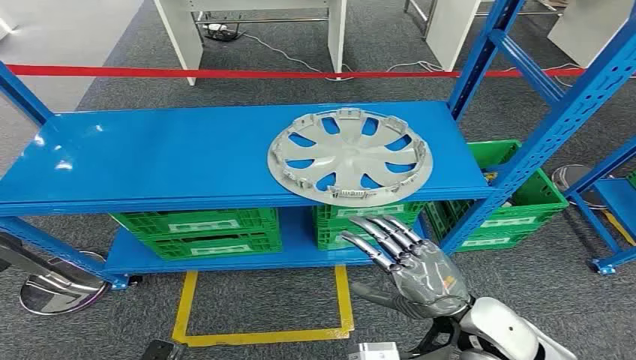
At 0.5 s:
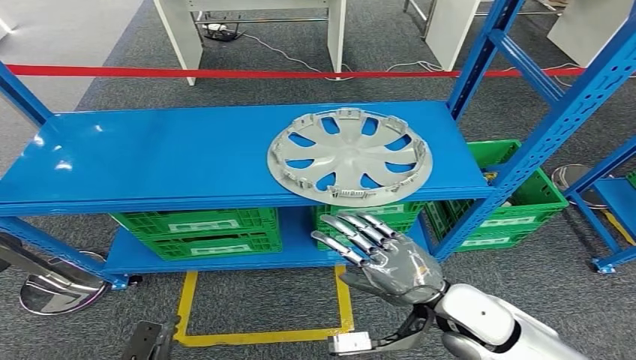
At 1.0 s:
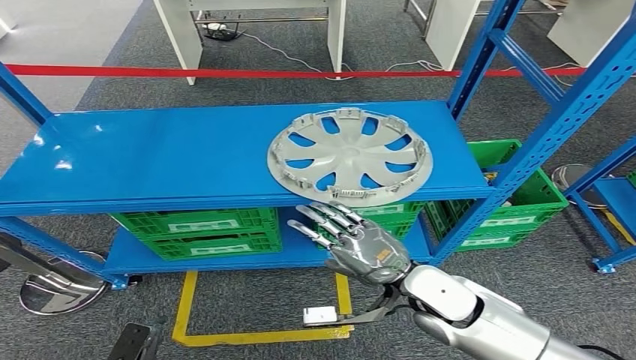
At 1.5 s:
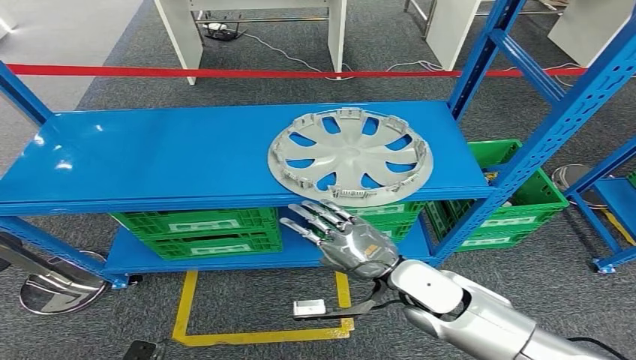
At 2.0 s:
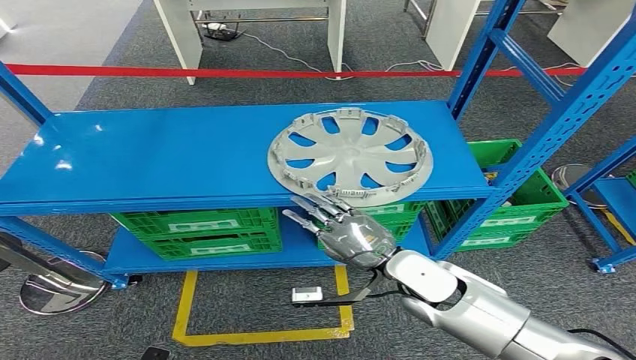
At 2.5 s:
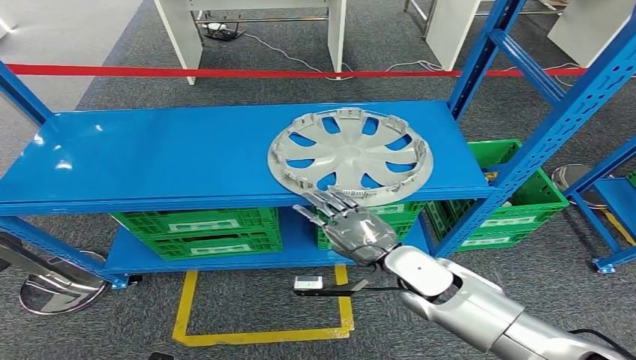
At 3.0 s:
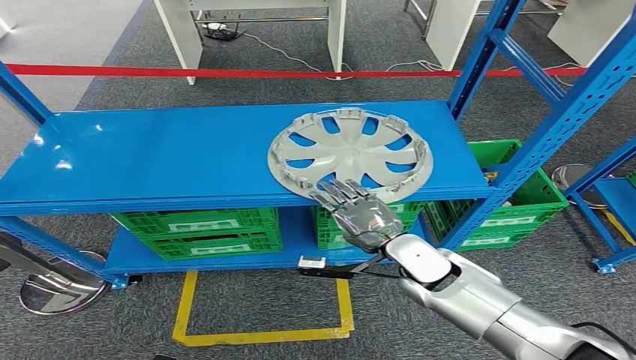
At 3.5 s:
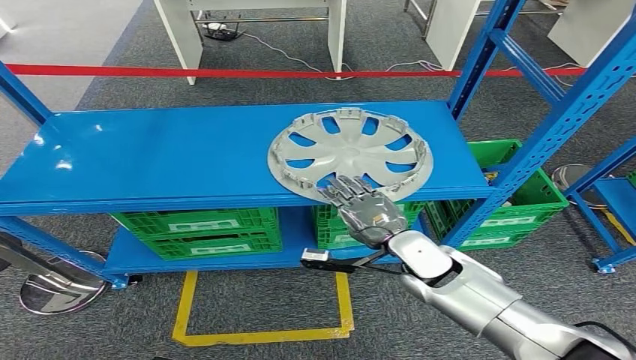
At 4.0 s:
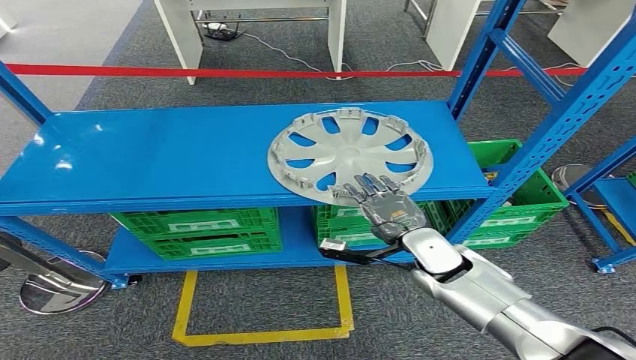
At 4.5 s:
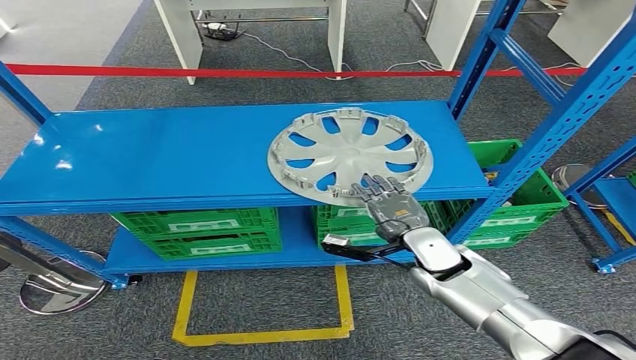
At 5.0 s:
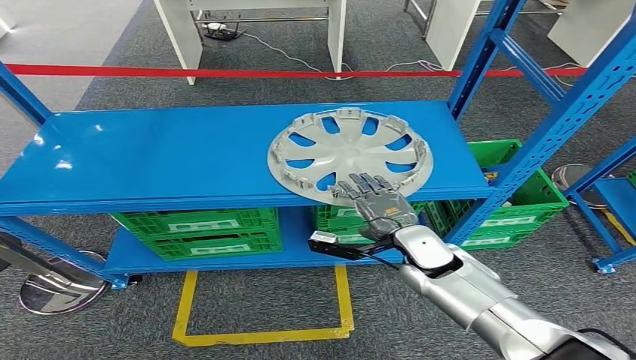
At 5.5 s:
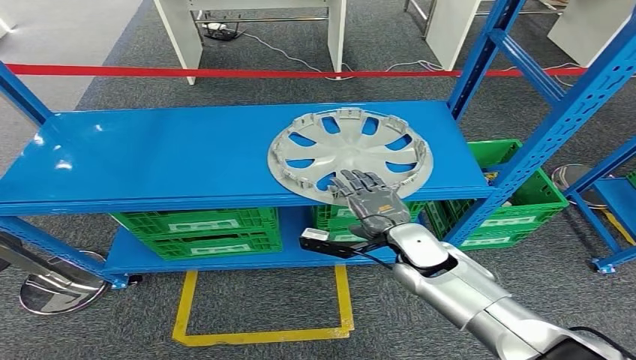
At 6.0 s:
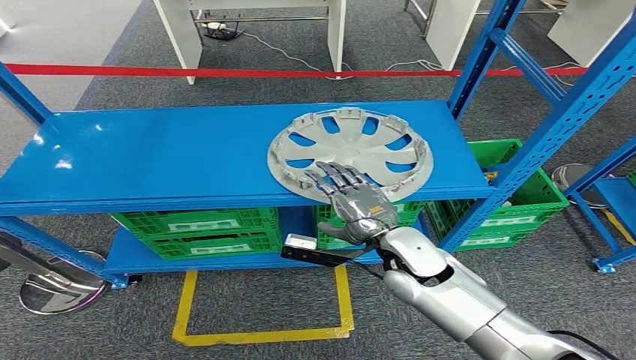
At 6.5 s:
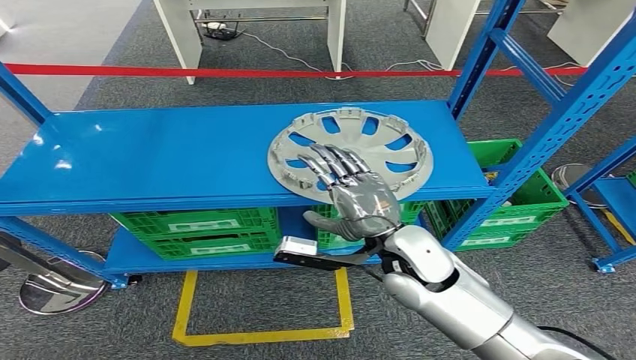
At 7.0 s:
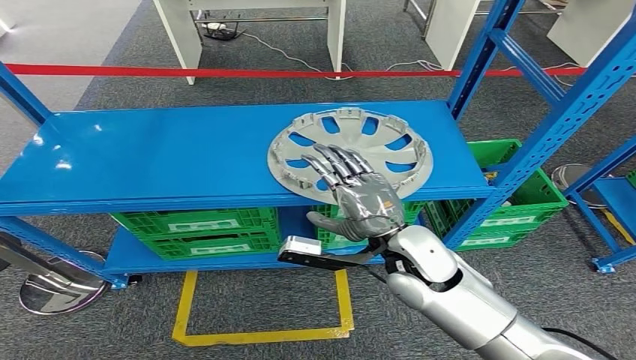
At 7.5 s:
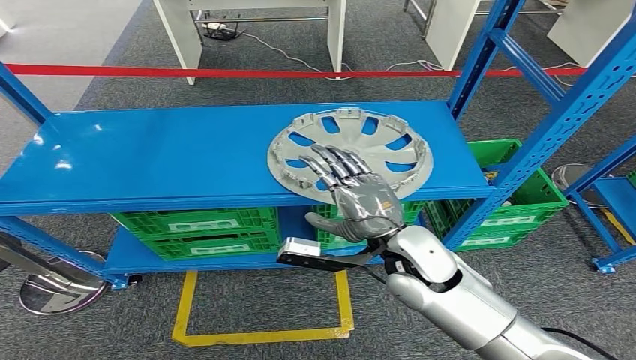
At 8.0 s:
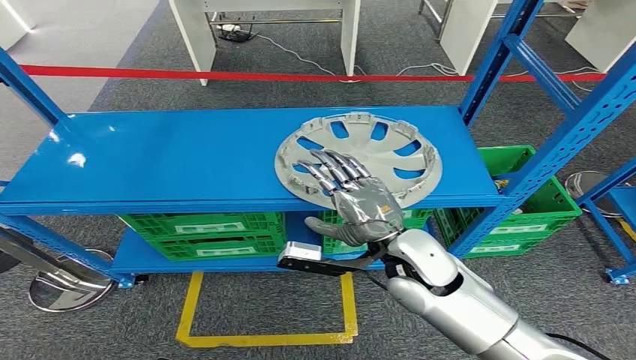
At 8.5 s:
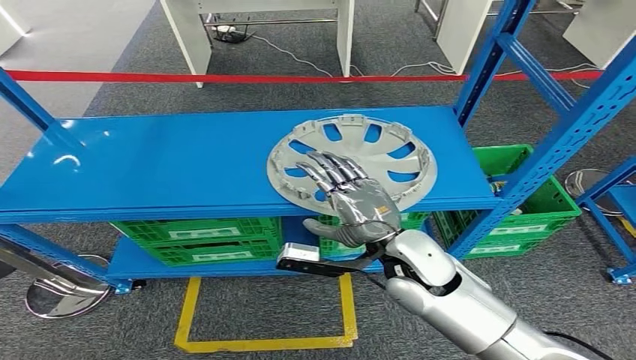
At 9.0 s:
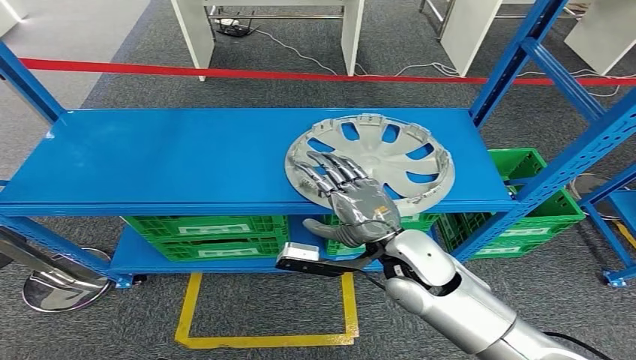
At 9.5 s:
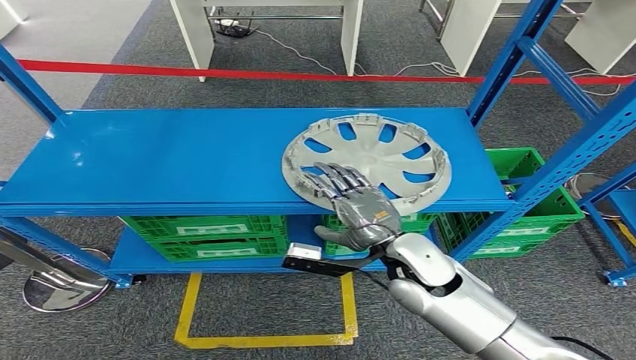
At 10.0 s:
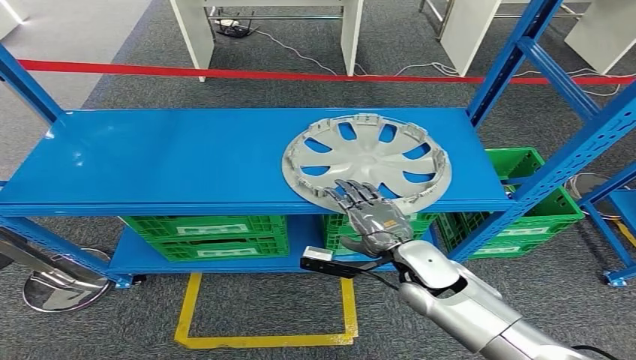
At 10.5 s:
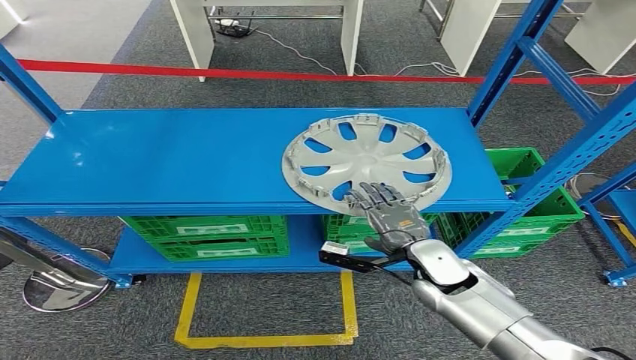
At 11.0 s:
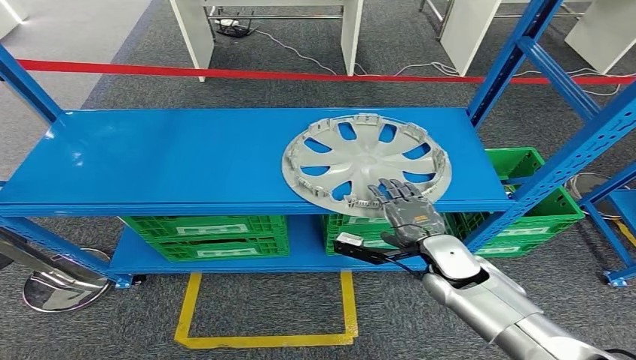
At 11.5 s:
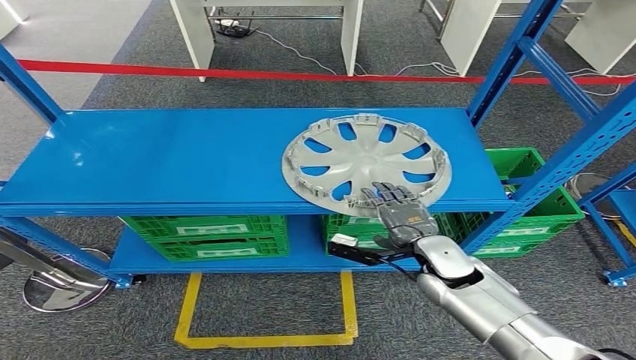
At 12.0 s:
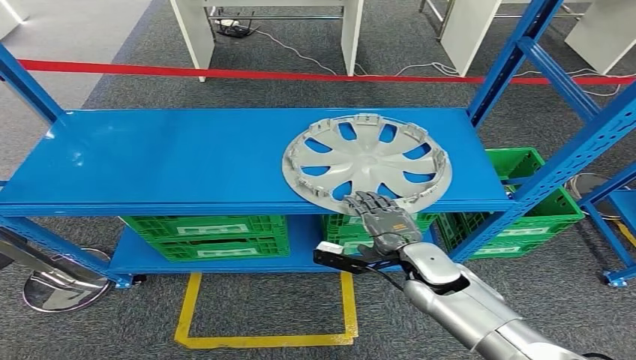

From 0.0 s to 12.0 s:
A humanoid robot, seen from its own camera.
From 2.0 s to 4.0 s: The right hand moves forward, roughly 5 cm.
From 4.0 s to 6.0 s: The right hand travels to the left by about 5 cm.
From 8.0 s to 10.0 s: The right hand moves downward, approximately 5 cm.
From 10.0 s to 12.0 s: There are only small adjustments of the hands.

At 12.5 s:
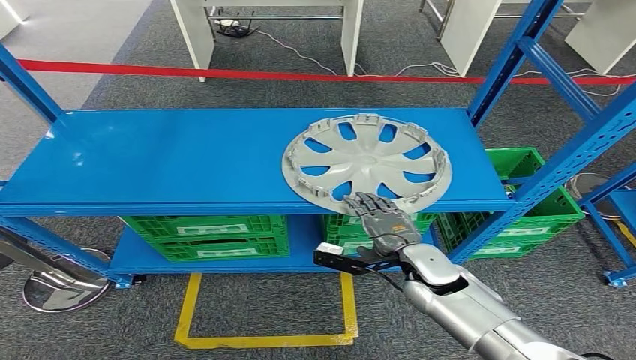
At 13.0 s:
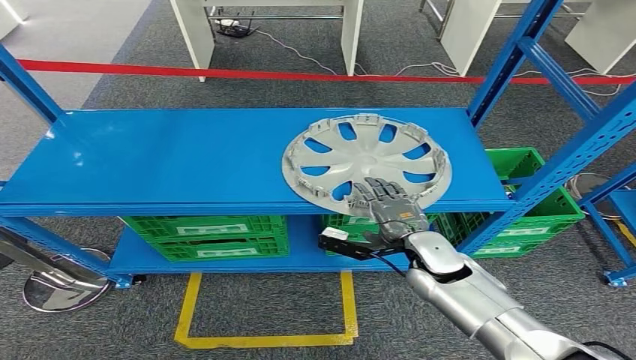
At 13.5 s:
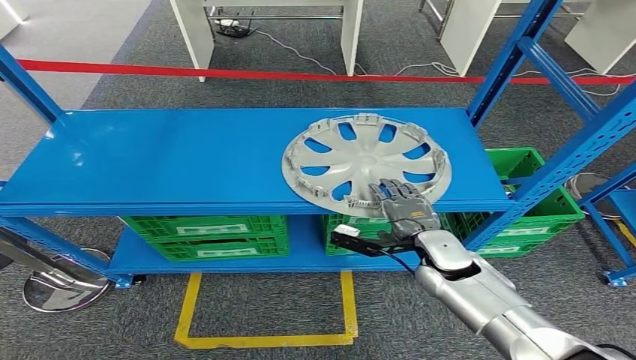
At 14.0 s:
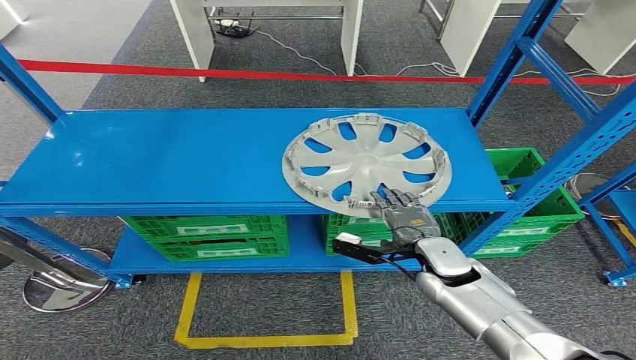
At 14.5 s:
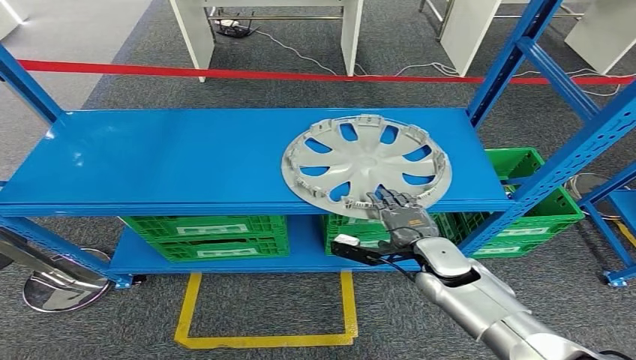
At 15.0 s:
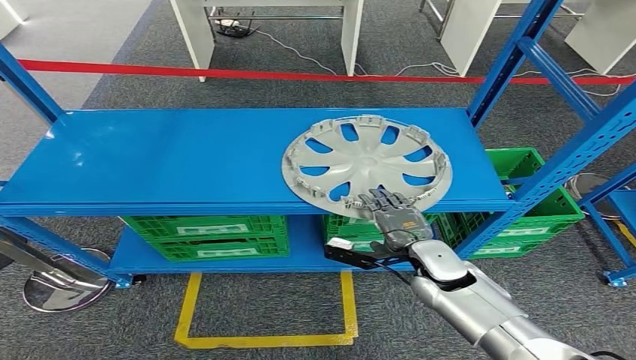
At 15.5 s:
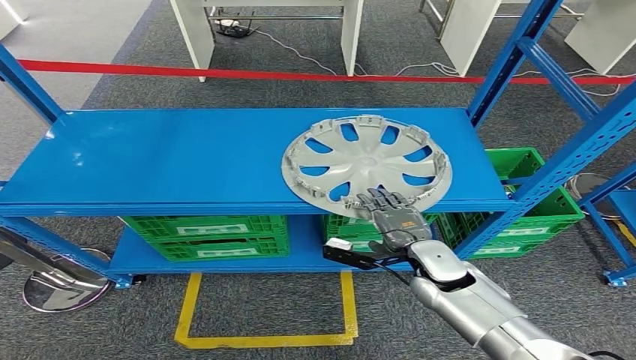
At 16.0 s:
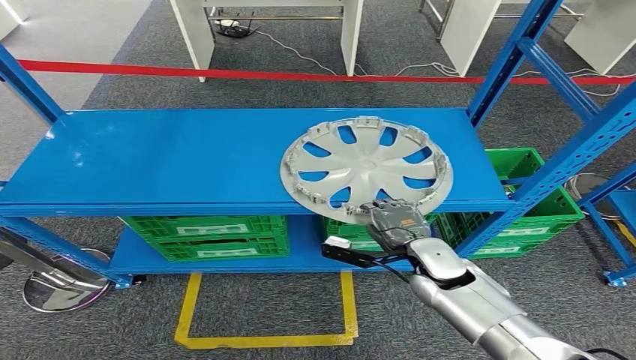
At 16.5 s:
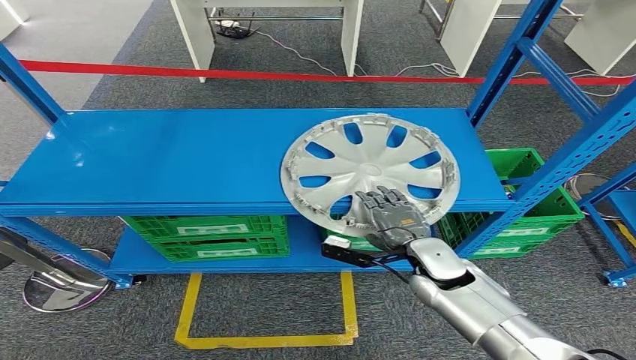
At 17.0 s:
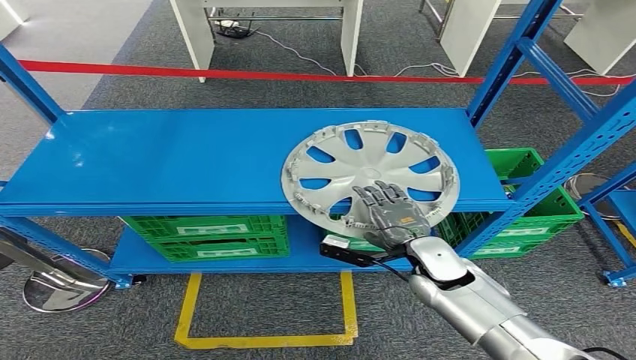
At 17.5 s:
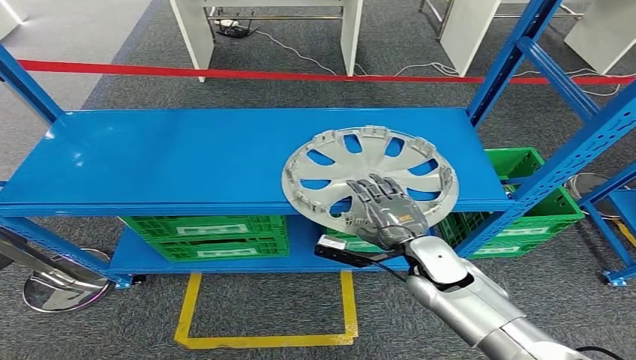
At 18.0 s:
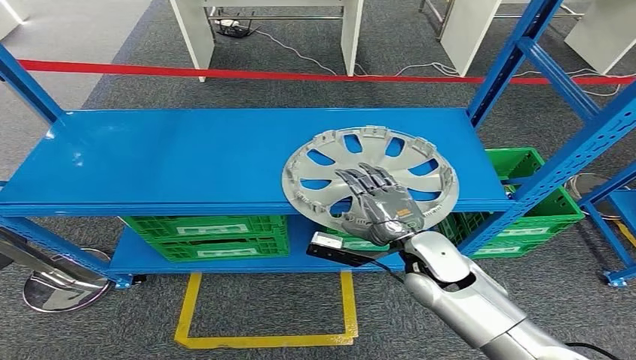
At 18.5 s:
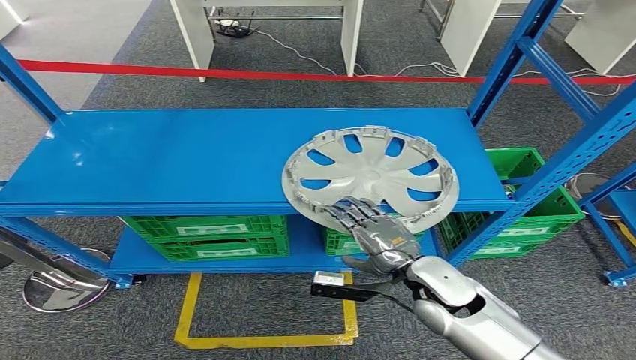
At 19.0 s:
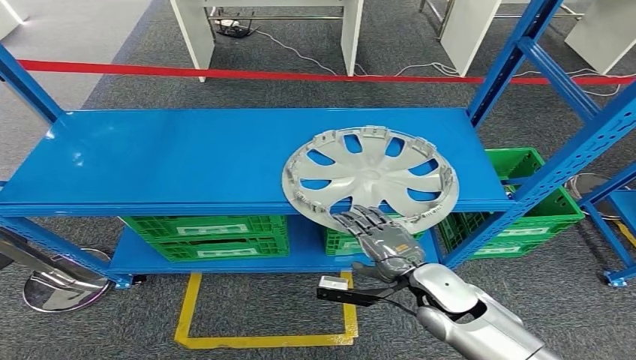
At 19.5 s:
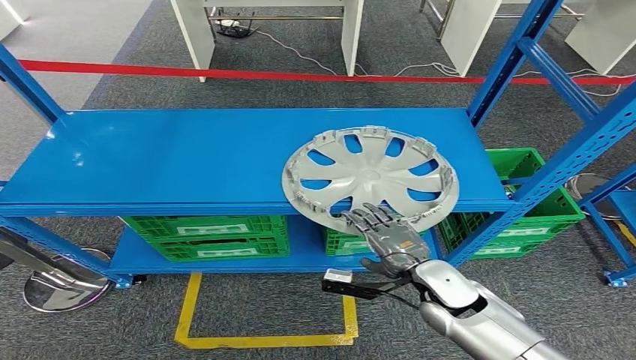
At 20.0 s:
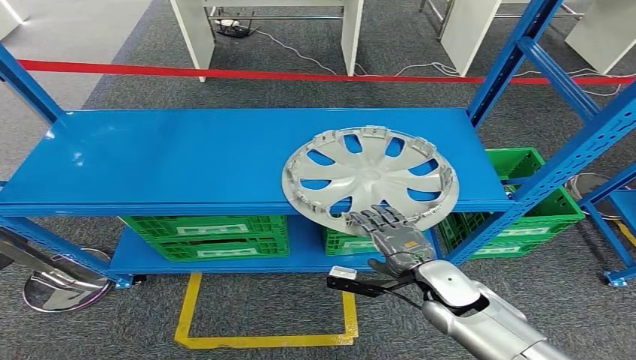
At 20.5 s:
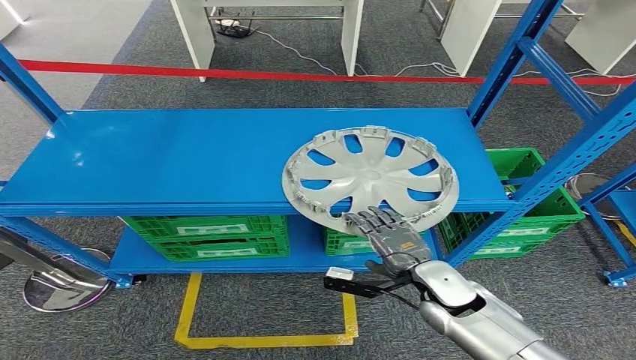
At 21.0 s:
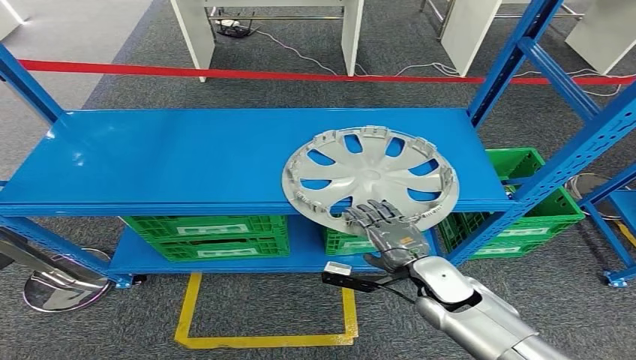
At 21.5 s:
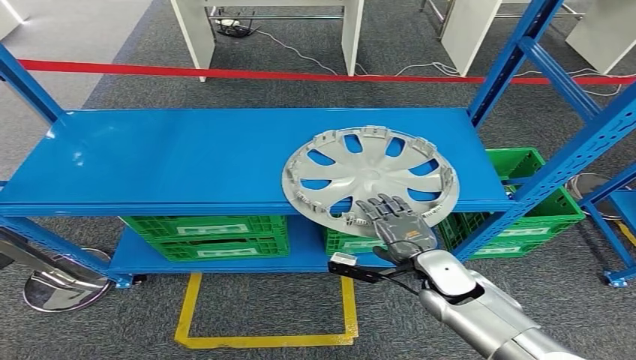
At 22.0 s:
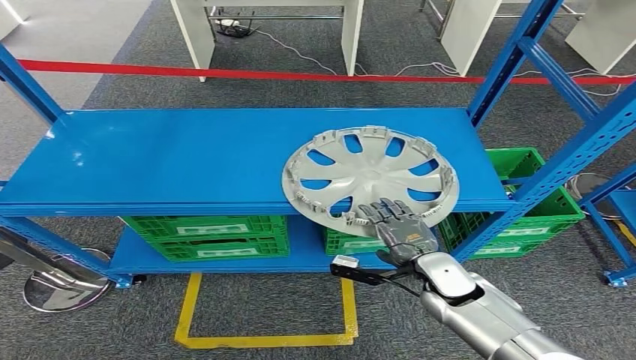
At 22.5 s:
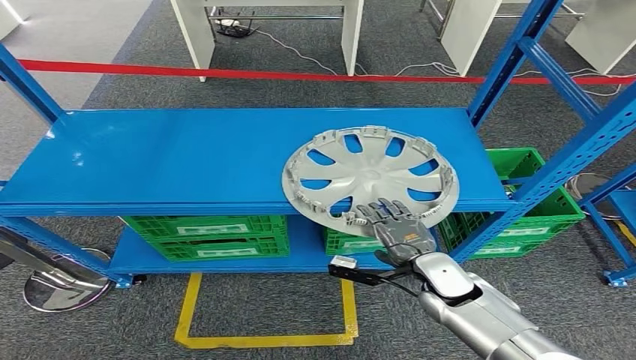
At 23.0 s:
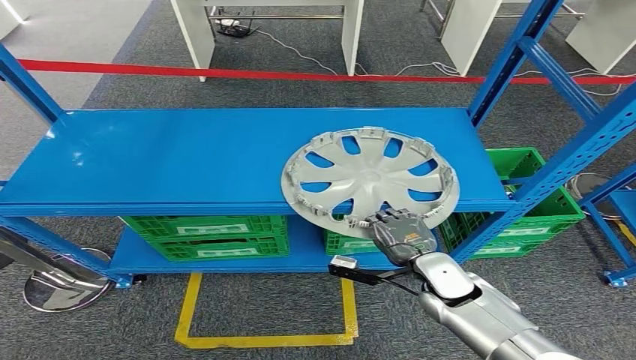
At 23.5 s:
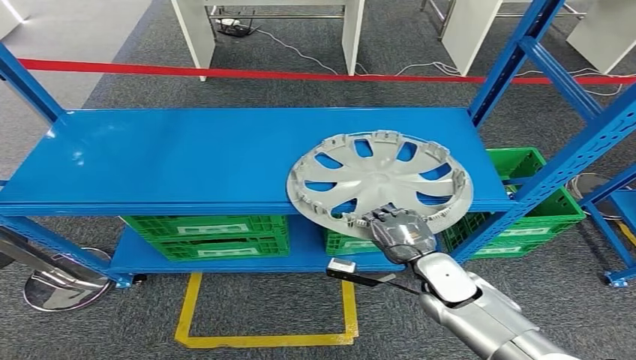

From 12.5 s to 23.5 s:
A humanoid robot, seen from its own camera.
From 12.5 s to 16.0 s: The hands move only a little.
From 16.0 s to 18.0 s: The right hand ends up some 5 cm from where it was.
From 18.0 s to 20.0 s: The right hand shifts roughly 5 cm downward.
From 20.0 s to 23.5 s: The hands make only small movements.
